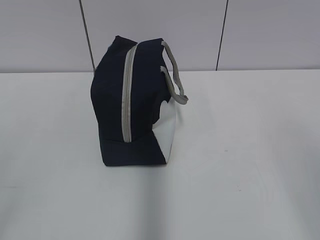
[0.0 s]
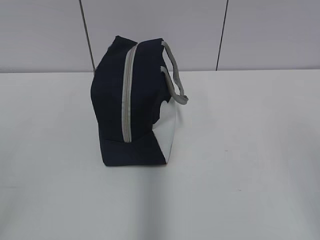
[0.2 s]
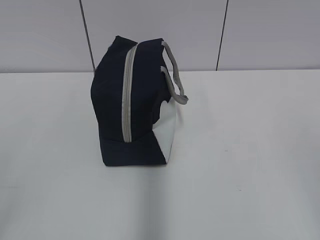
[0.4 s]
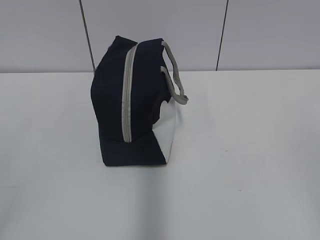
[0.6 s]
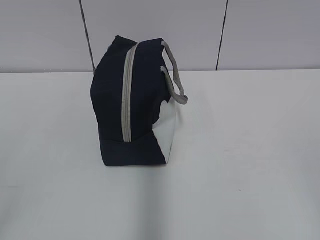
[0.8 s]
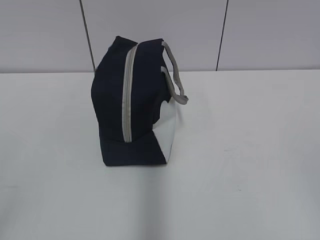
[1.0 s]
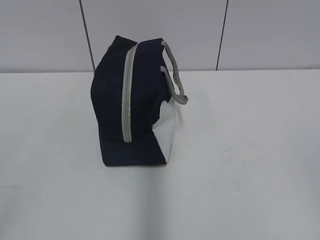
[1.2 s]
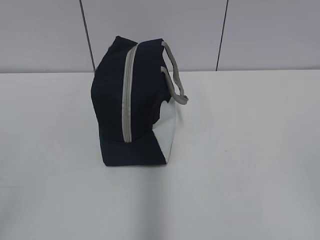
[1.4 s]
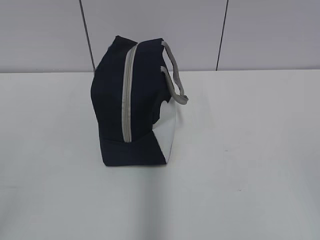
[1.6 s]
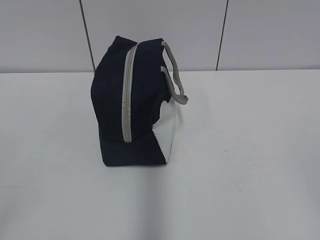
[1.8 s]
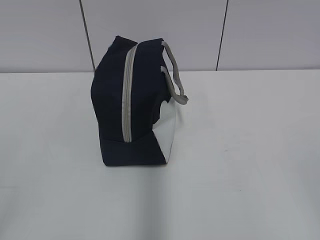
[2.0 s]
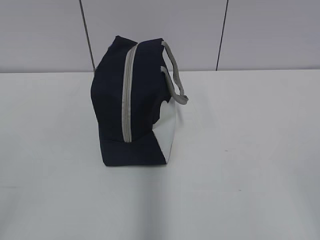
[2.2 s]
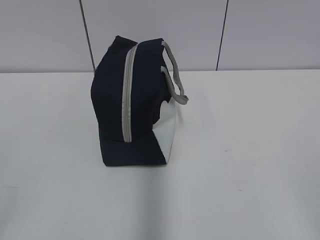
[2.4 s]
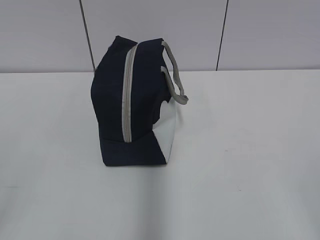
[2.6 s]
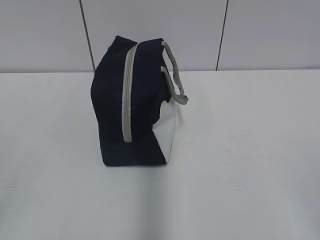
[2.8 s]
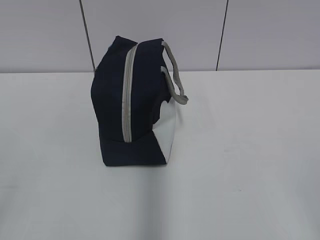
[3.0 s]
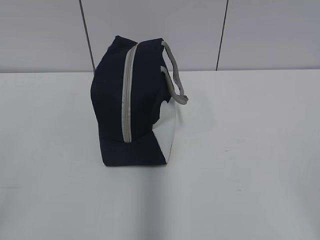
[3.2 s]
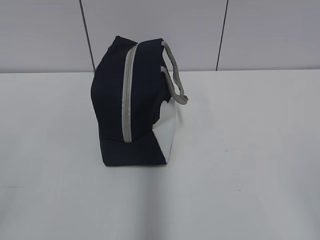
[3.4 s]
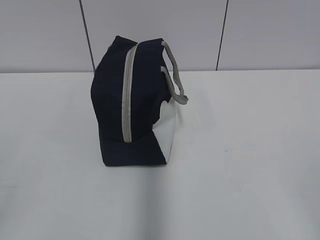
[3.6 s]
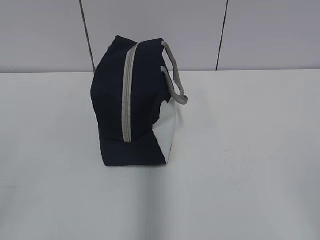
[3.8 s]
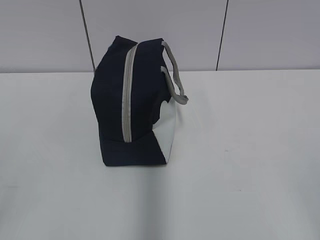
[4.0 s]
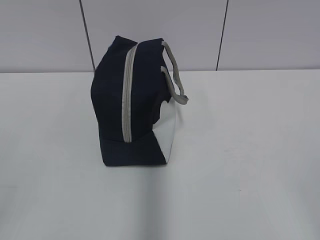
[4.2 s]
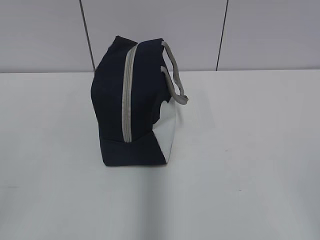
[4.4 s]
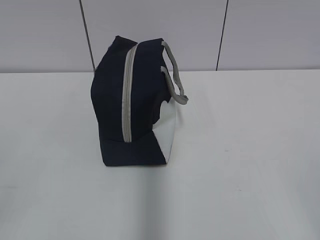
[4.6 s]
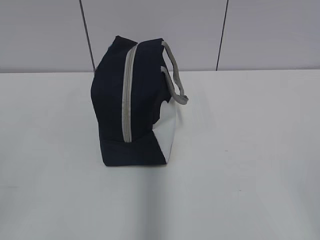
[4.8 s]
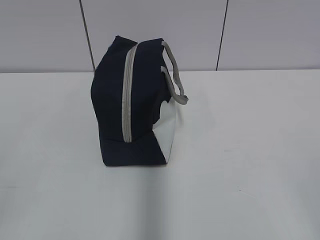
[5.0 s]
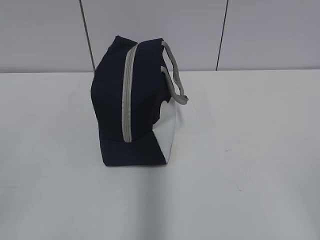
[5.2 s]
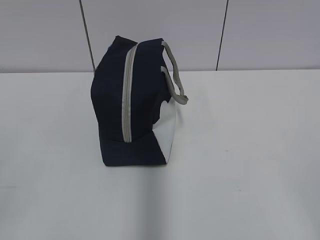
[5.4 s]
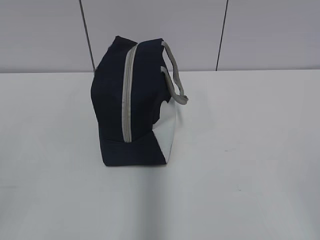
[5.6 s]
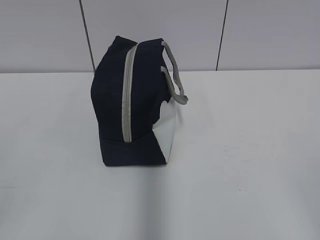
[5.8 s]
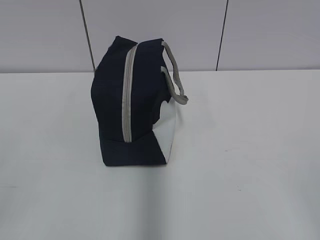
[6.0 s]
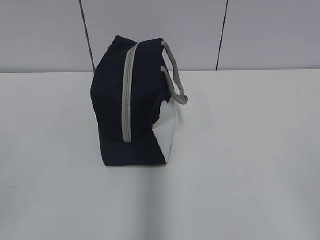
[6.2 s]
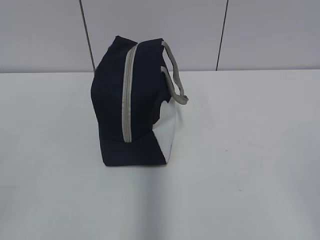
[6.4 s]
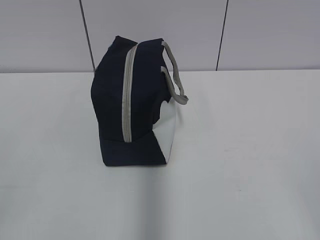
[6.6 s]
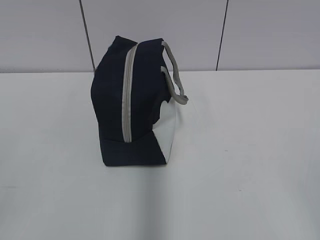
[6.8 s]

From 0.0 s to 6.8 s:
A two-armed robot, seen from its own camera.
From 4.0 s to 6.8 s: The two grippers keep their place.
